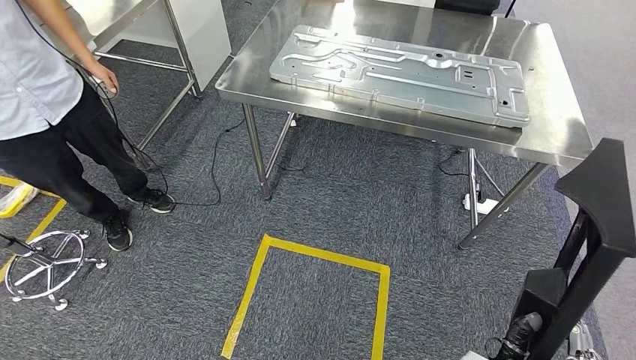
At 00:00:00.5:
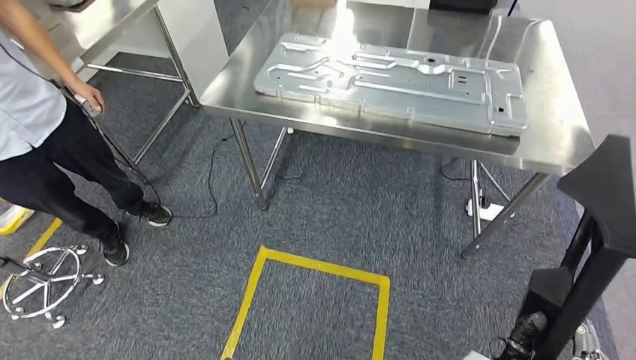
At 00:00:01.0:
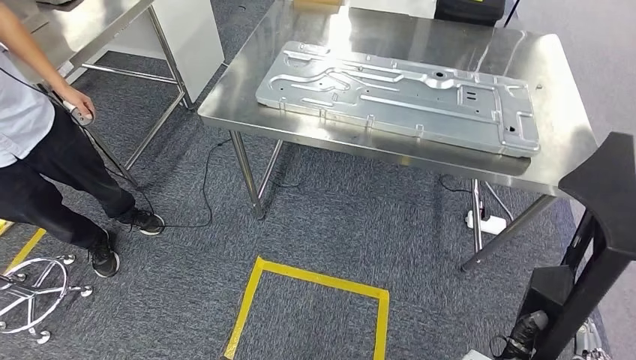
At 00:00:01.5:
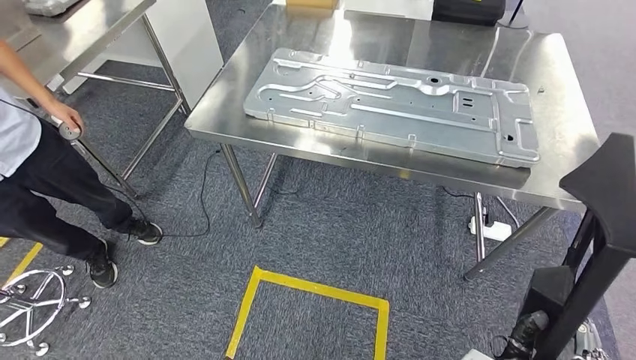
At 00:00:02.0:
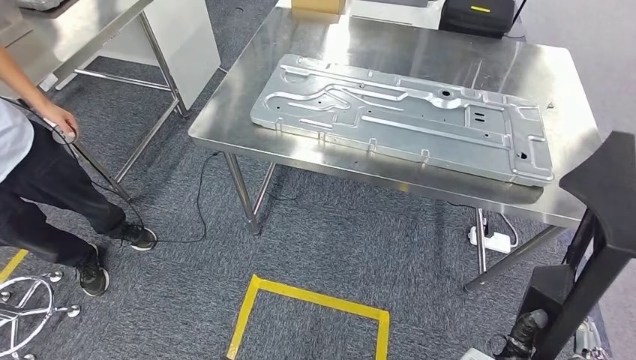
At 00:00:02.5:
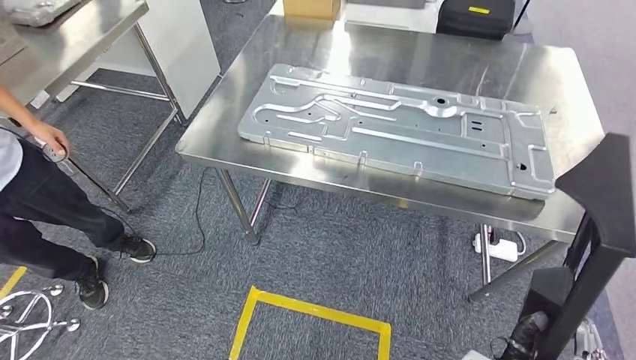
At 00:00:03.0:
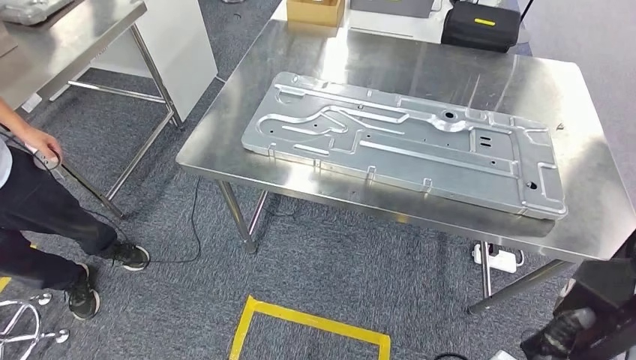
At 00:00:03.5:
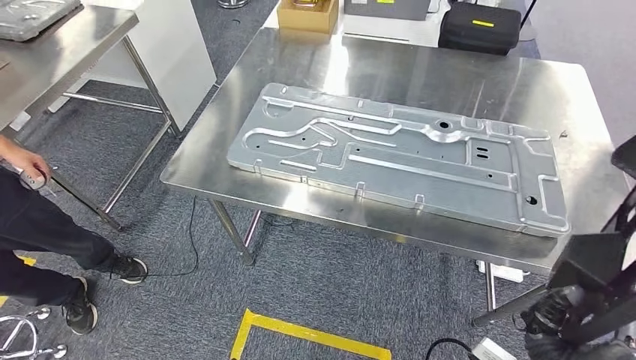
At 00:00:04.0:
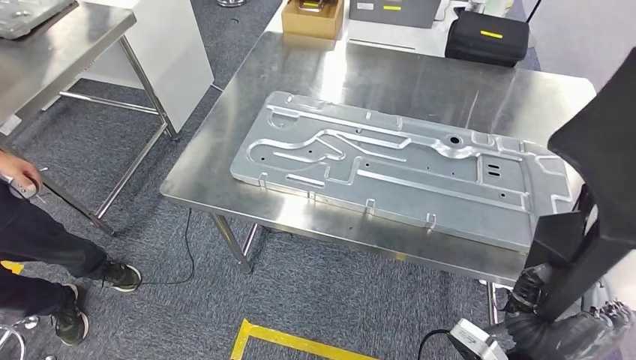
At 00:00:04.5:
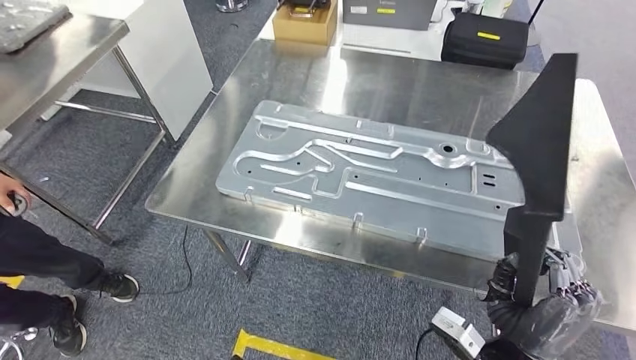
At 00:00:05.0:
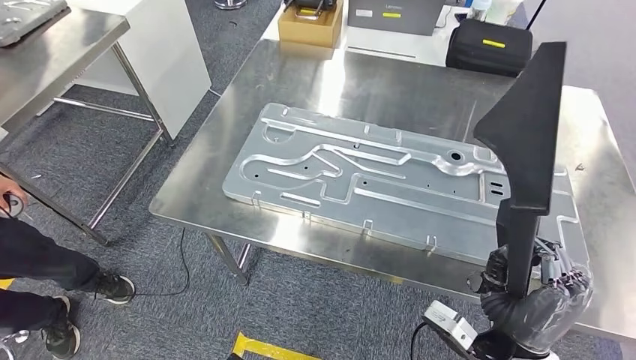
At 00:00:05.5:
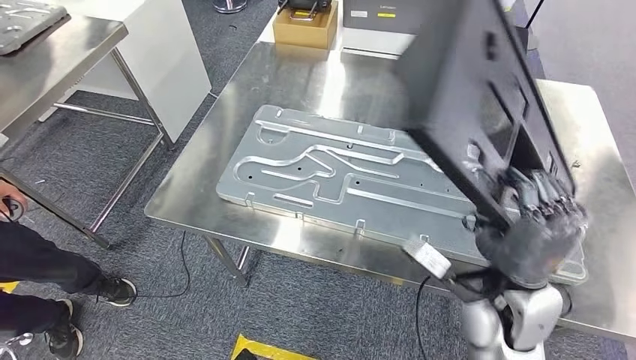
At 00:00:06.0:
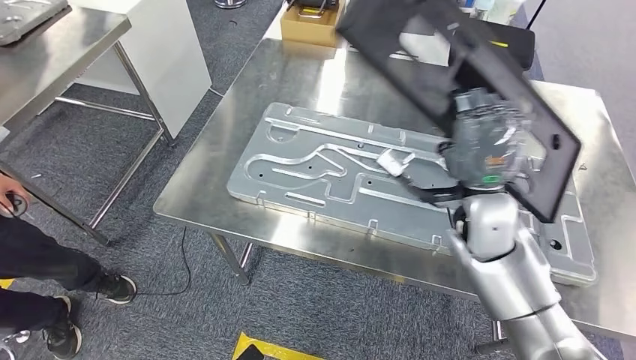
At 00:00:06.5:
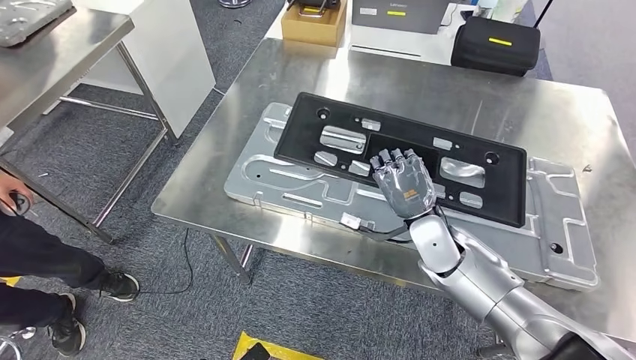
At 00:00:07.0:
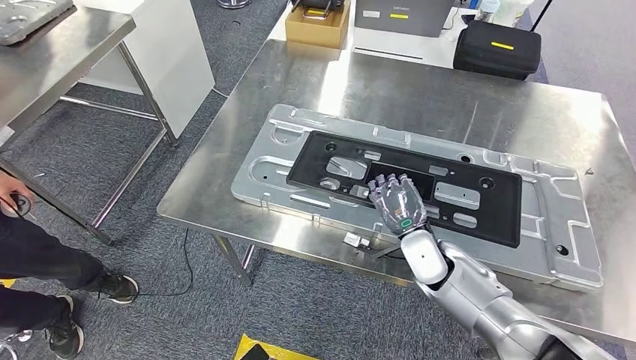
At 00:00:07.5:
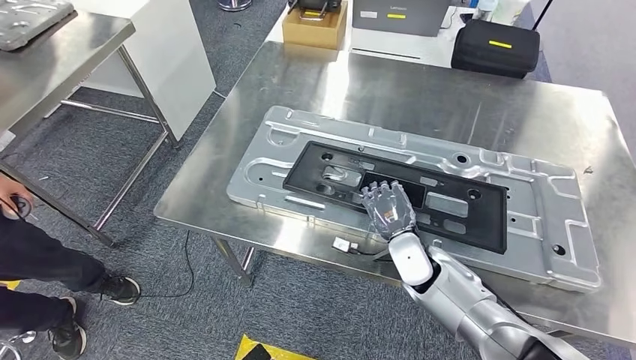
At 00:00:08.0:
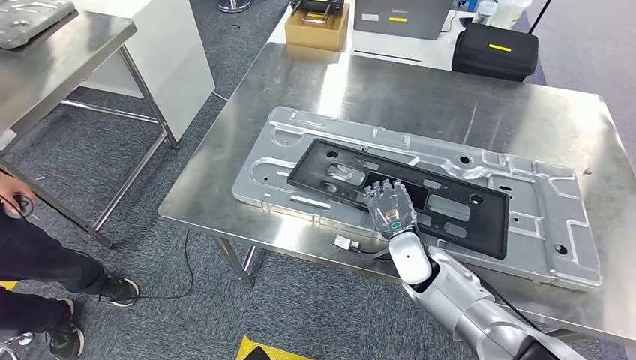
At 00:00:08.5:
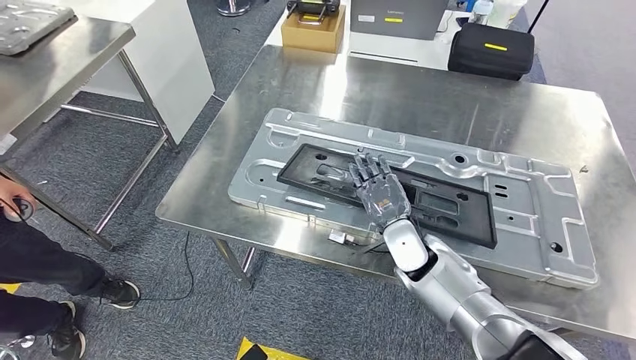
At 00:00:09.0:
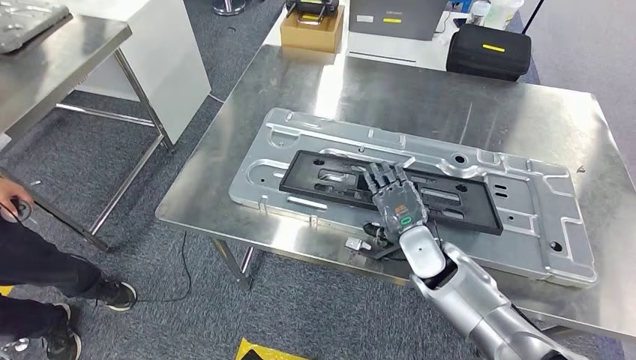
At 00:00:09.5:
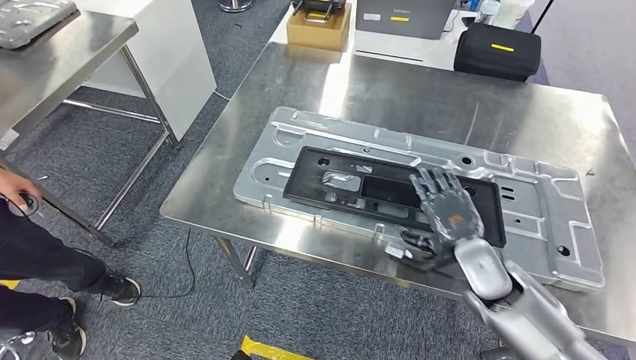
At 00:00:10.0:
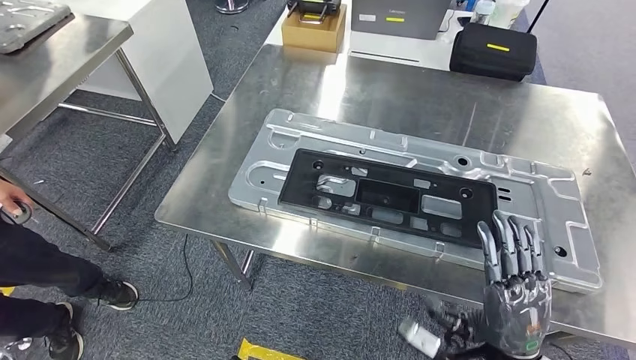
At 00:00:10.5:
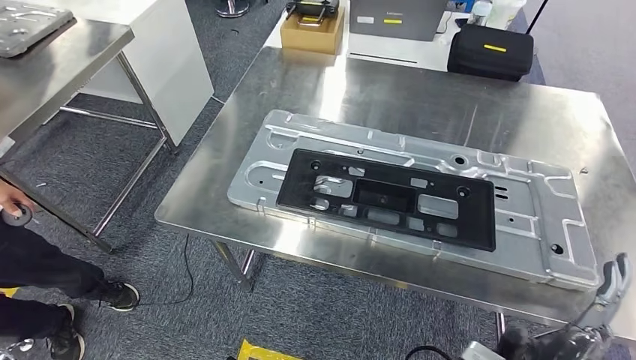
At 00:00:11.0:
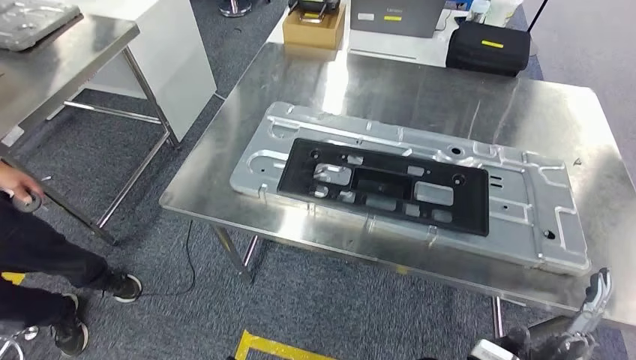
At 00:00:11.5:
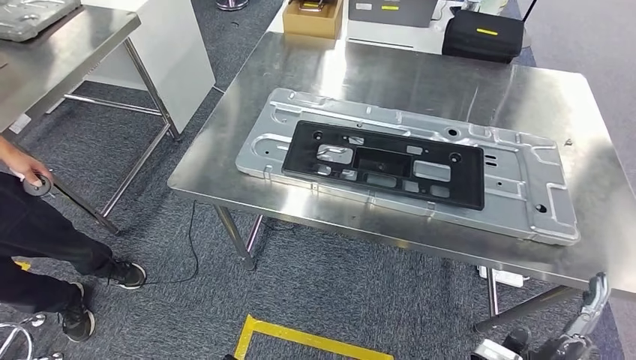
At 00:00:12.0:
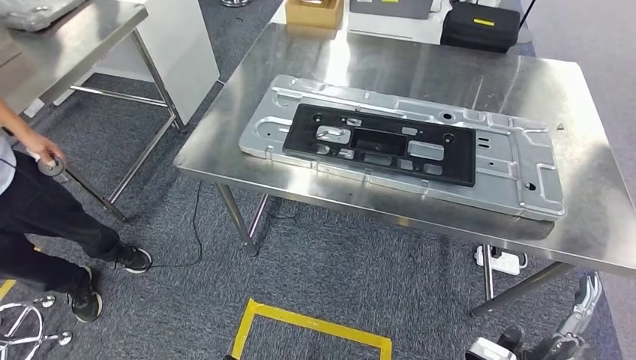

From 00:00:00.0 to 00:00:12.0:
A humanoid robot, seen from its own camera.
Step, from 00:00:00.0 to 00:00:04.0: Move the large material to the workbench.

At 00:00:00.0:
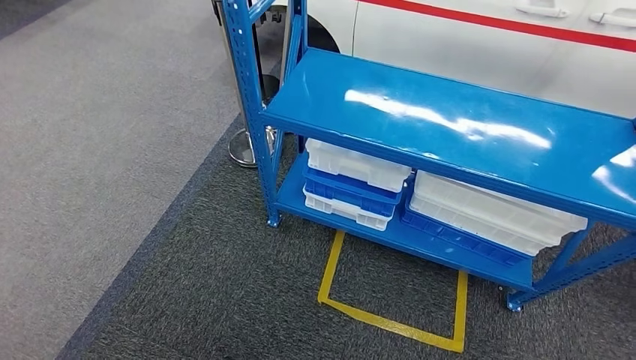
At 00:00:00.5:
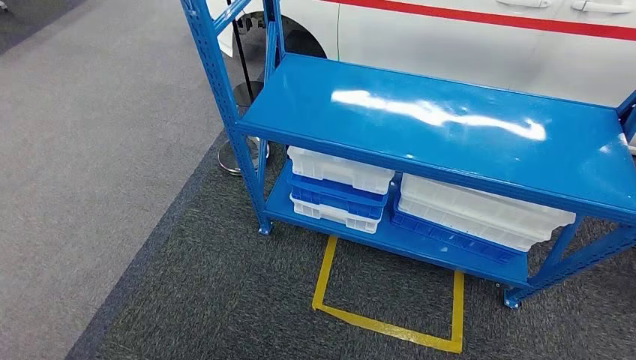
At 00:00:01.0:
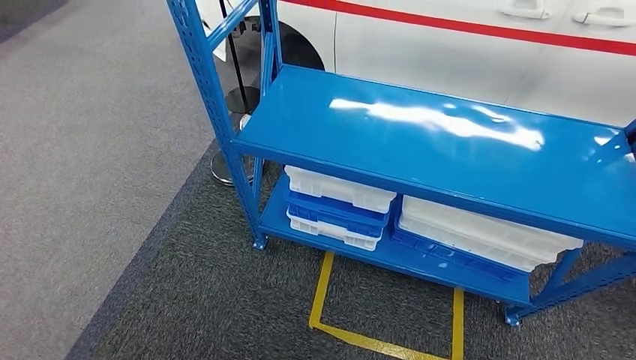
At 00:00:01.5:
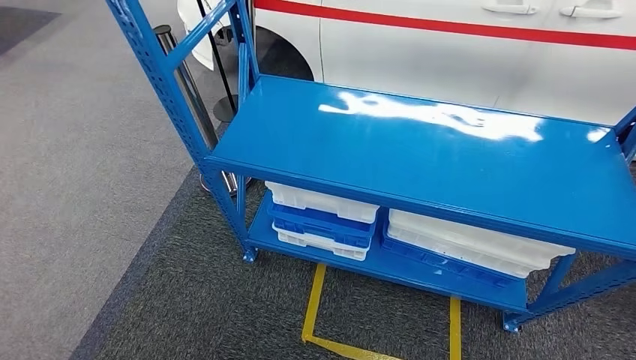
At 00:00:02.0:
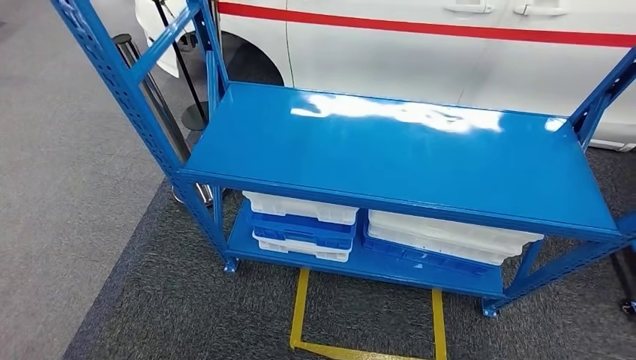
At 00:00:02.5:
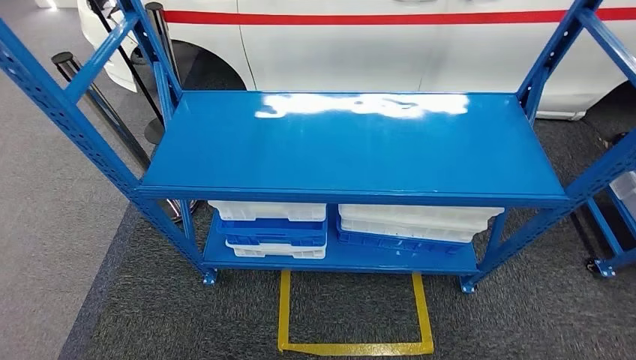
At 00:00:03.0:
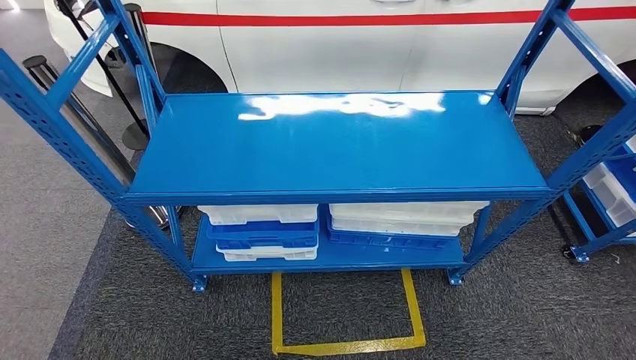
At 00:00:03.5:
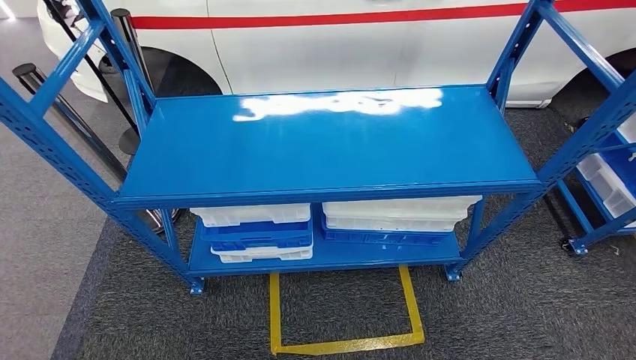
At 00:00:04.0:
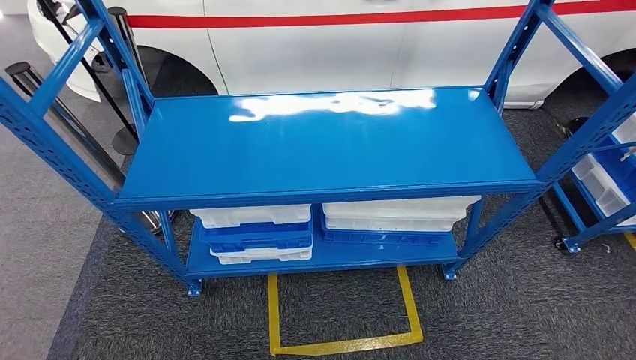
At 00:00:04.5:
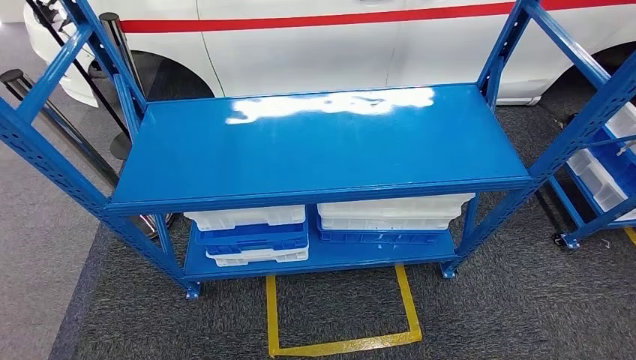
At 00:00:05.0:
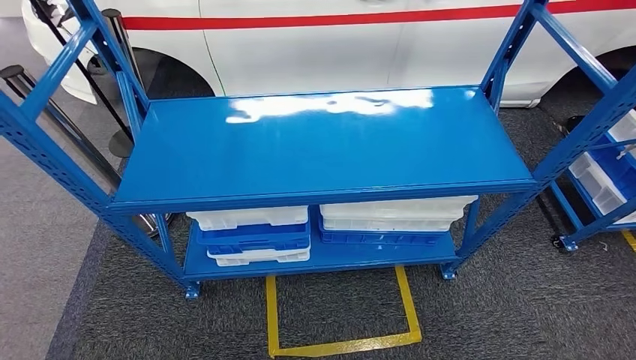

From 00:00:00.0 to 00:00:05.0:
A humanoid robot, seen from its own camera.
Step, from 00:00:00.0 to 00:00:05.0: Return to the initial position at the shelf.
